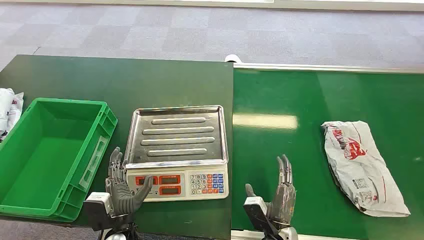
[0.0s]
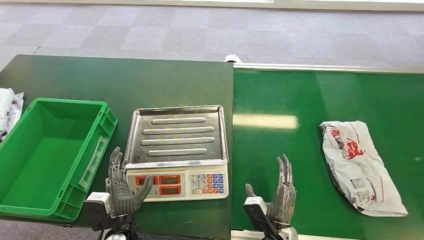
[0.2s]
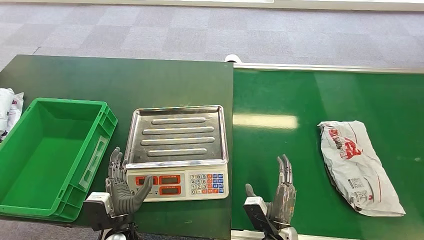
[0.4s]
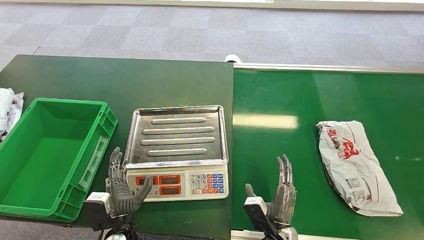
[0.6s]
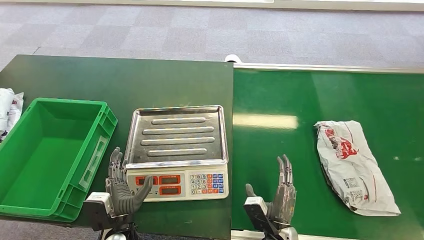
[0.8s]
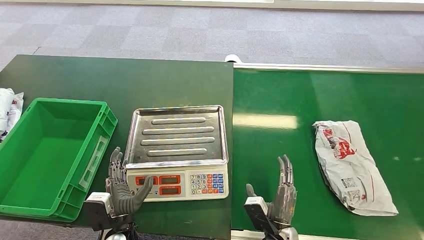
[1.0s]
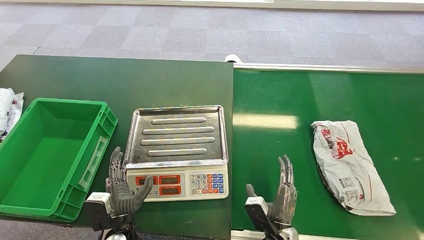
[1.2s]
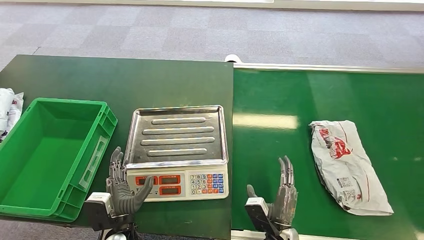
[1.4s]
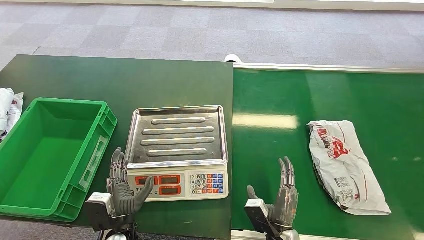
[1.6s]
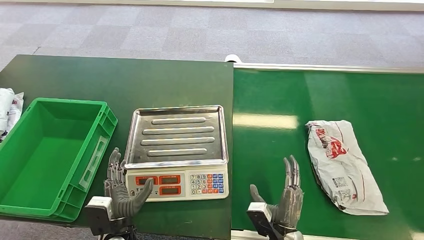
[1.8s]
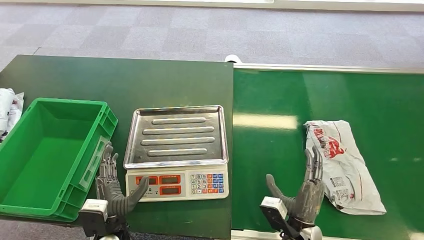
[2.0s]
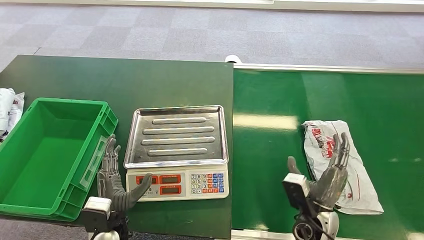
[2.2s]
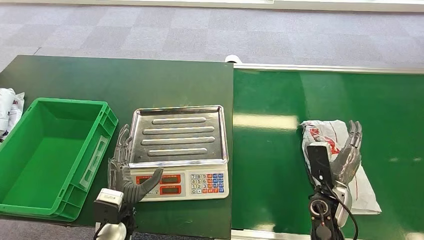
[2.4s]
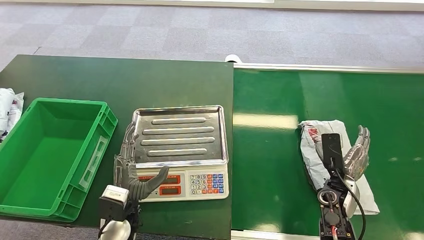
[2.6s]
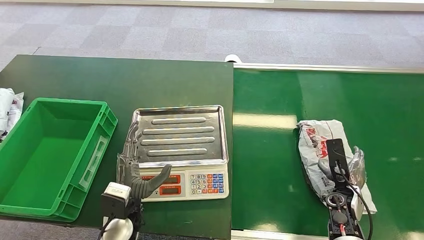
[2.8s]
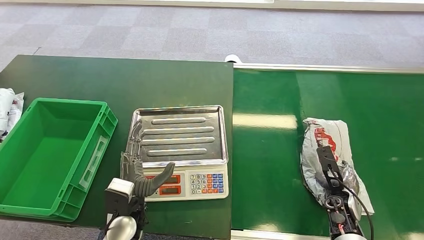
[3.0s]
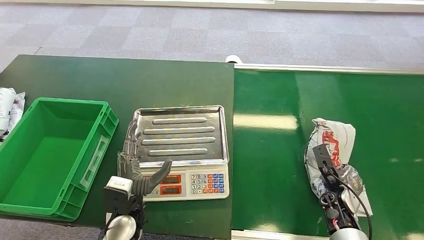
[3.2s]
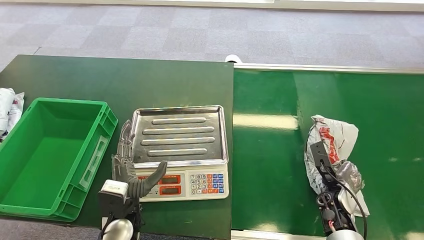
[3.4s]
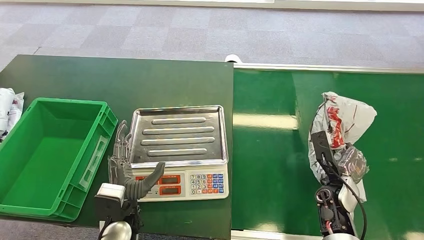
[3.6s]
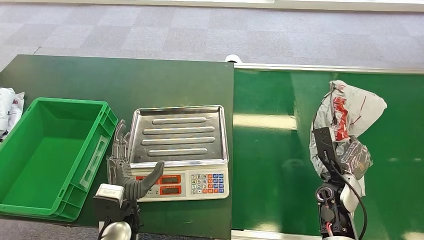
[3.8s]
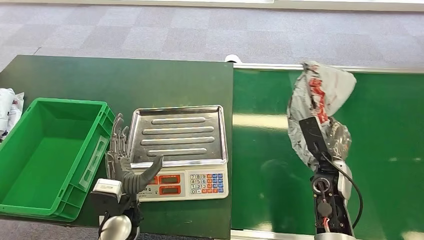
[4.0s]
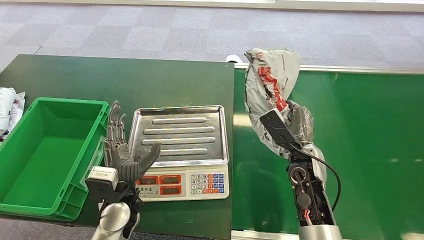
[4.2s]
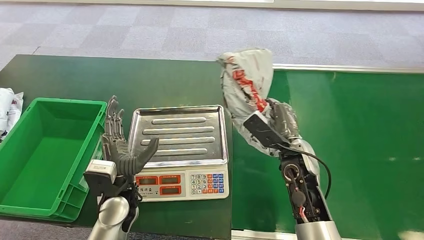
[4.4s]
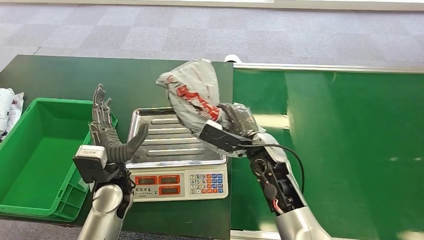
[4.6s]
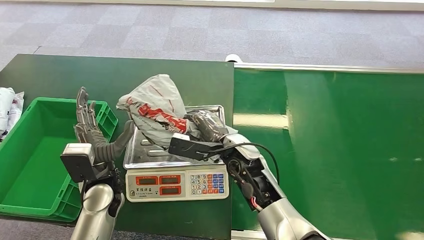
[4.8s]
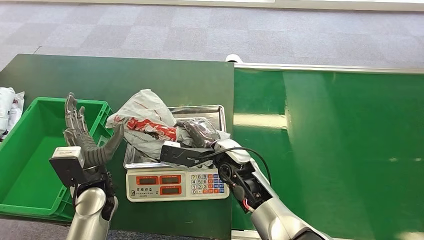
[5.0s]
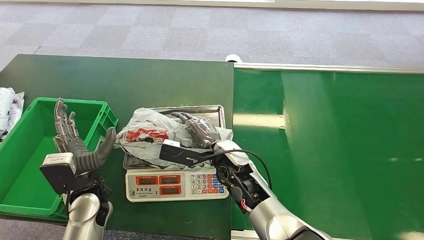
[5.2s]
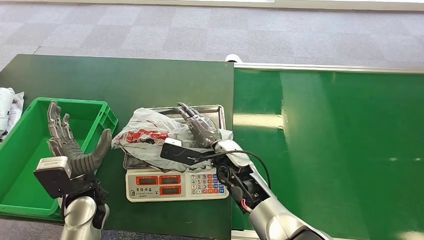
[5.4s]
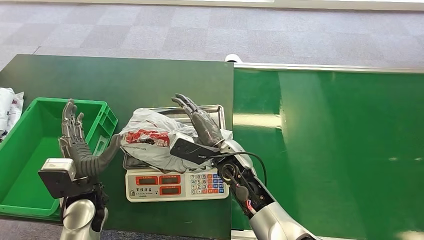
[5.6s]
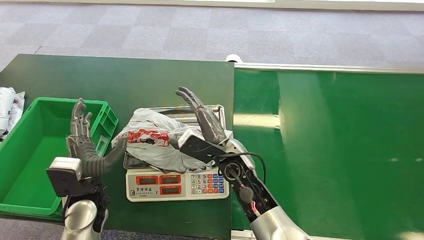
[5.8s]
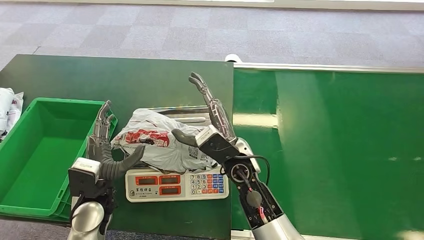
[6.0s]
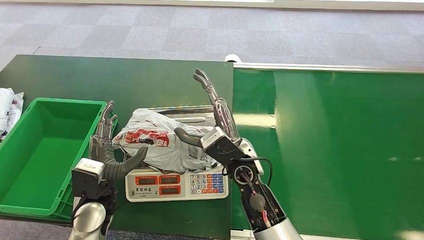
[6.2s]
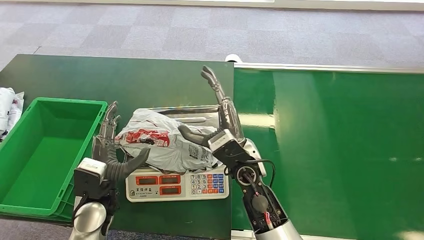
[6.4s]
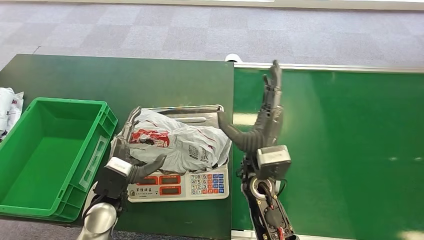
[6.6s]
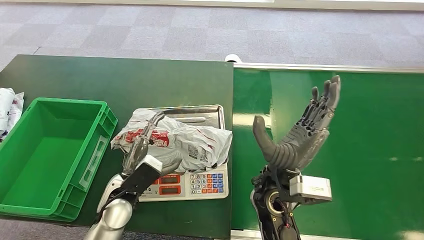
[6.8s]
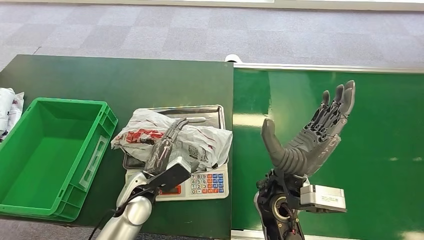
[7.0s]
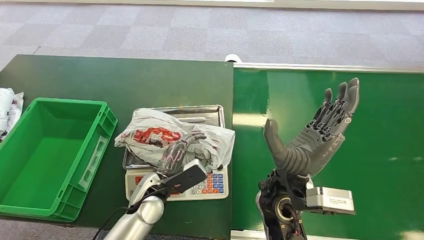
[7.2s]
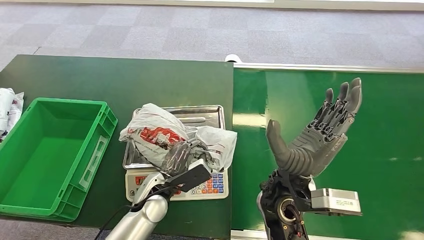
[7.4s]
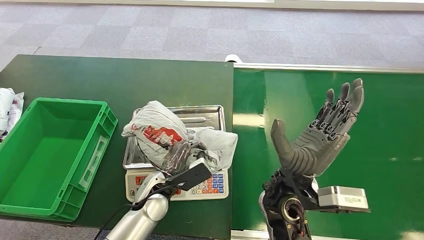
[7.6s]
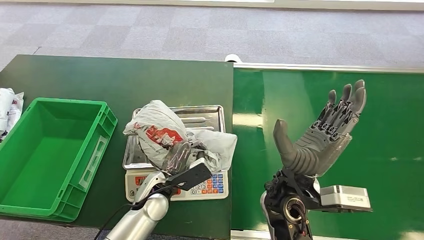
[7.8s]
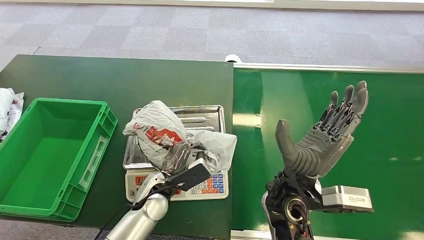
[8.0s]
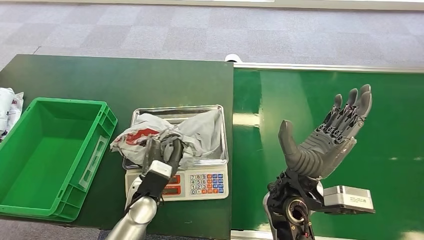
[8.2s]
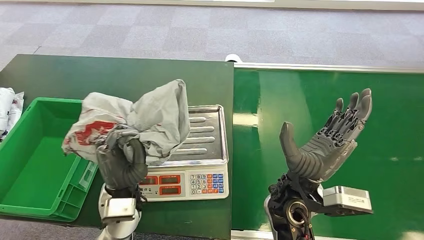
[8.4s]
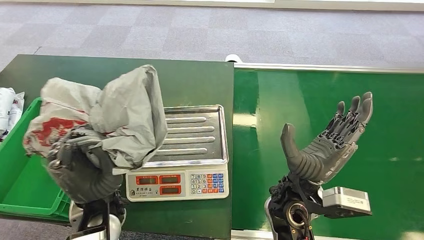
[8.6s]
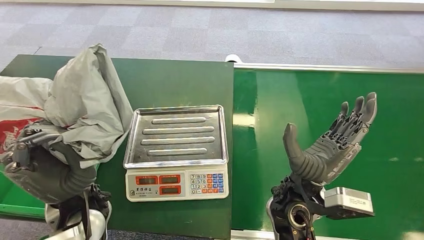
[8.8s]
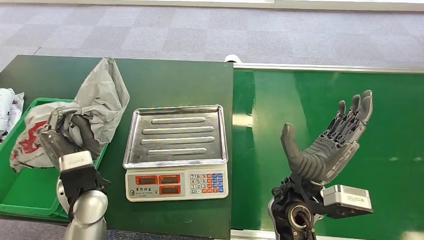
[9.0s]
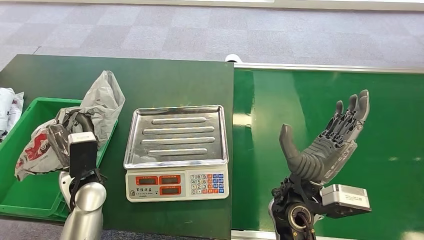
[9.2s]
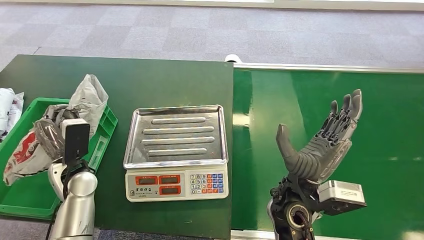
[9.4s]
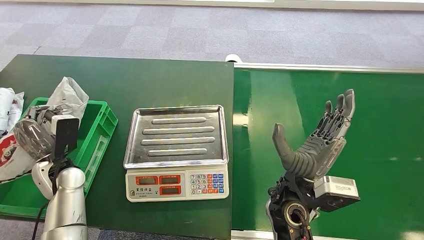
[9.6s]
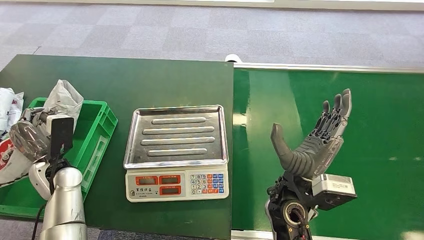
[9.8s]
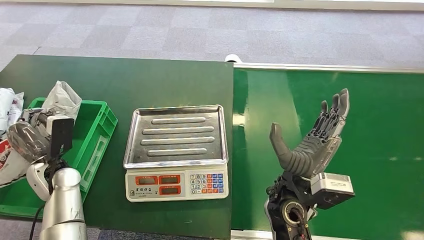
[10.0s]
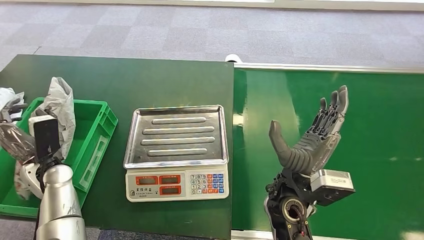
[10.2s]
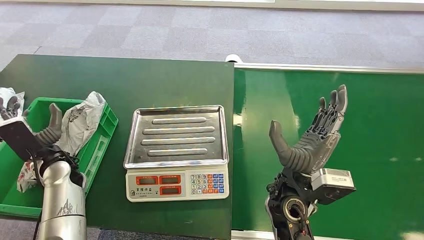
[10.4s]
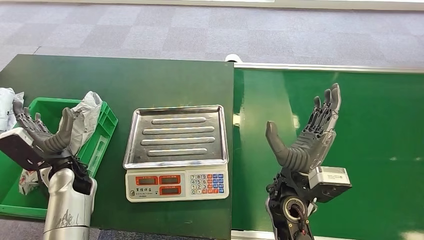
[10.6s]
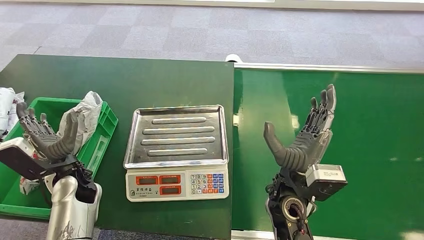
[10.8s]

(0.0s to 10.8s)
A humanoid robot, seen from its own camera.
Task of the whole recording: Weigh the package on the weighing device and place it in the left basket.
Step, 0.0s - 4.2s: Pick up the package from the conveyor belt.
Step, 4.4s - 6.0s: Place the package onto the inbound machine.
Step, 6.2s - 9.2s: Pick up the package from the inbound machine.
Step, 9.4s - 10.8s: Place the package into the parcel locker.
1.6s - 3.0s: The left hand is displaced upward by approximately 5 cm. The right hand shifts about 25 cm to the right and forward.
4.6s - 6.2s: The left hand changes place by some 5 cm. The right hand heads to the left, covering roughly 5 cm.
